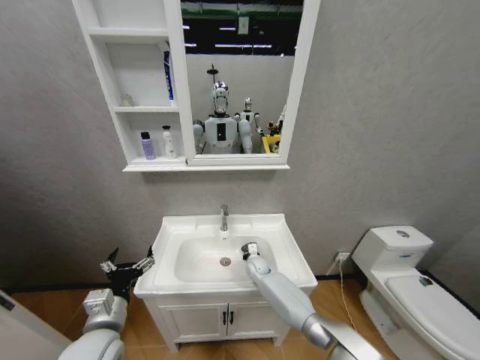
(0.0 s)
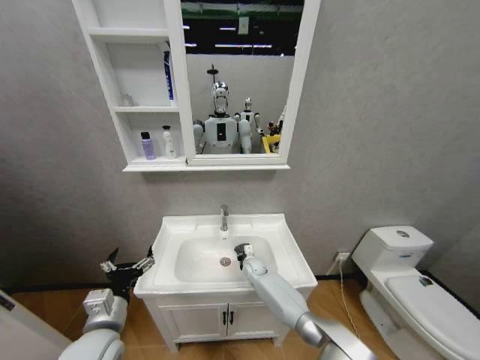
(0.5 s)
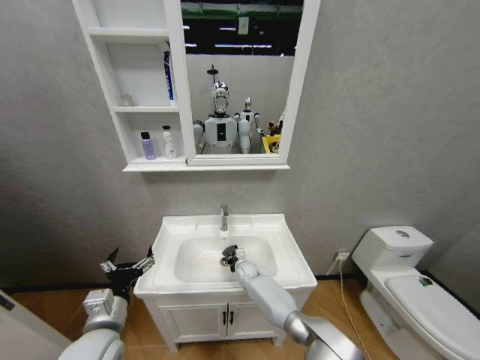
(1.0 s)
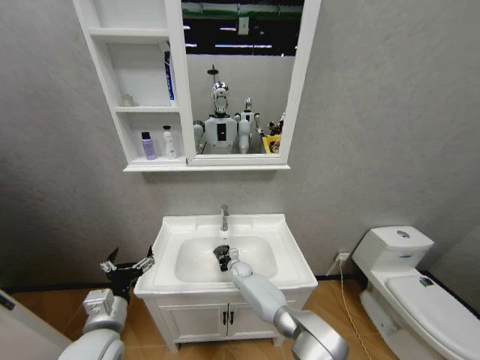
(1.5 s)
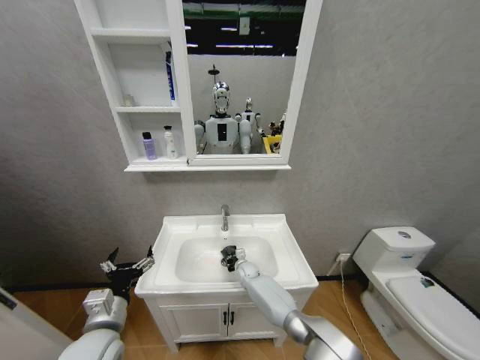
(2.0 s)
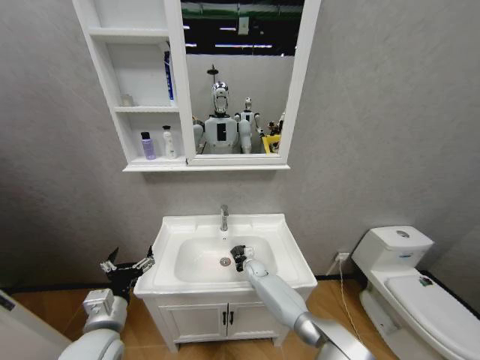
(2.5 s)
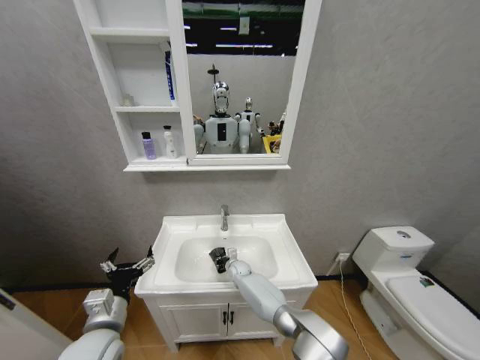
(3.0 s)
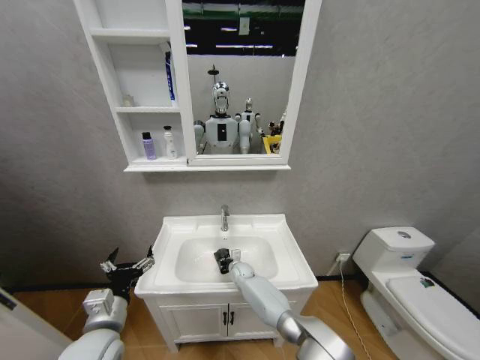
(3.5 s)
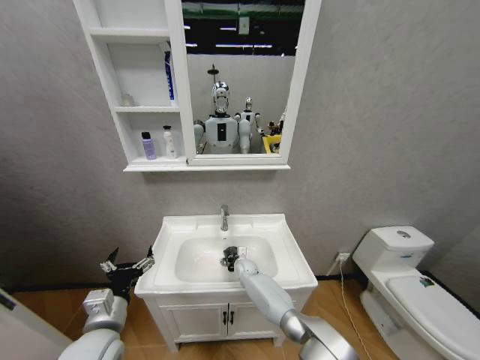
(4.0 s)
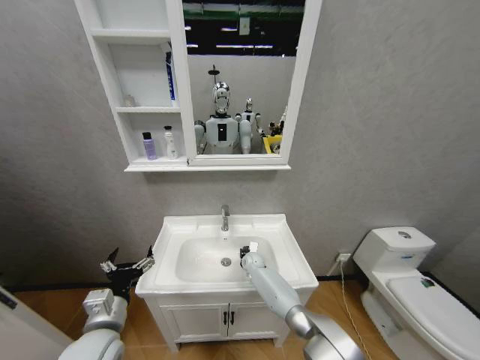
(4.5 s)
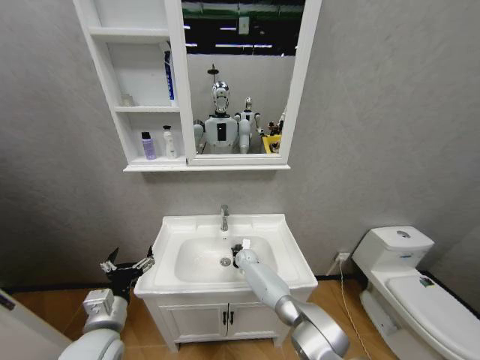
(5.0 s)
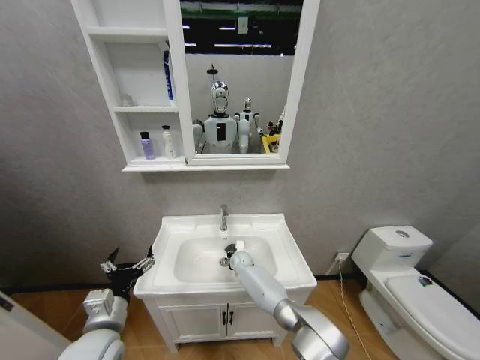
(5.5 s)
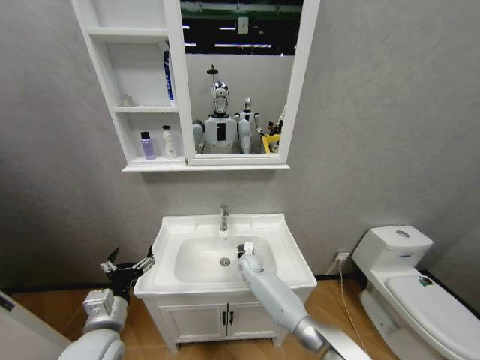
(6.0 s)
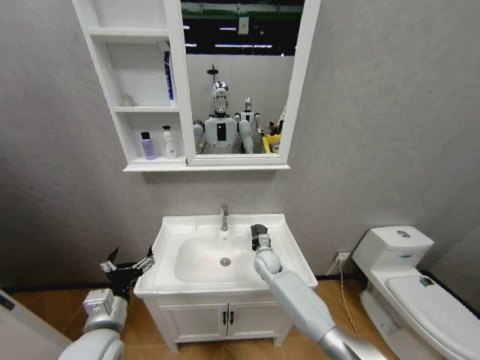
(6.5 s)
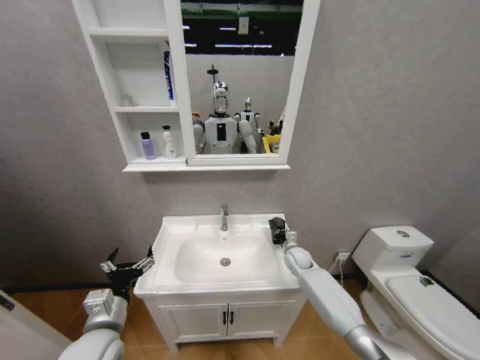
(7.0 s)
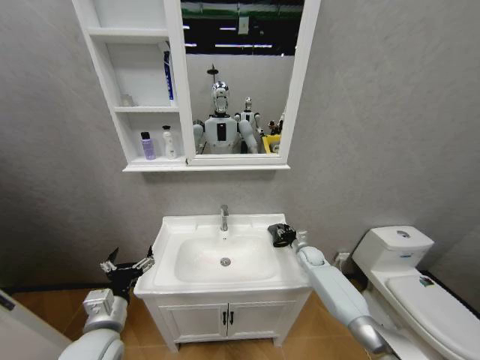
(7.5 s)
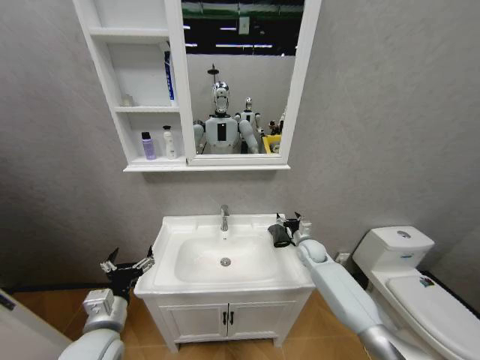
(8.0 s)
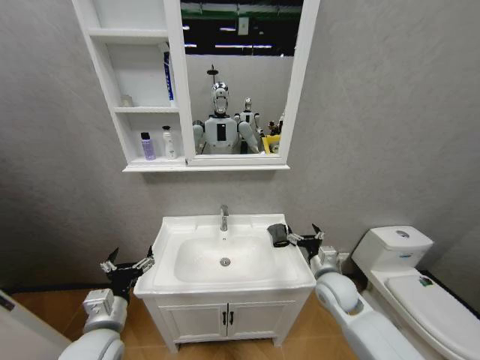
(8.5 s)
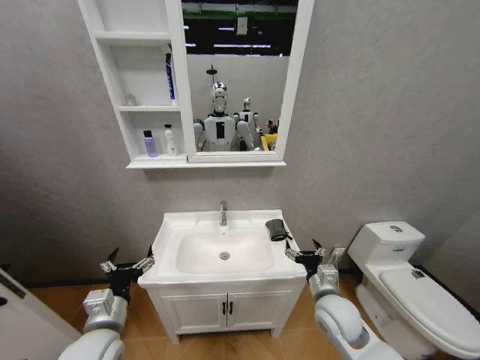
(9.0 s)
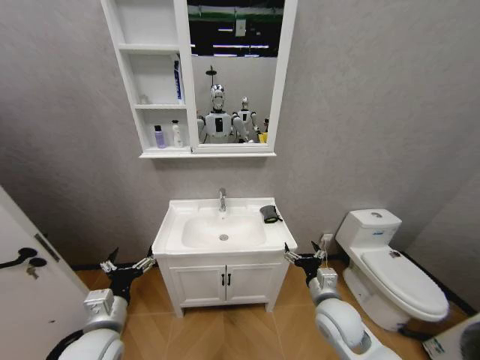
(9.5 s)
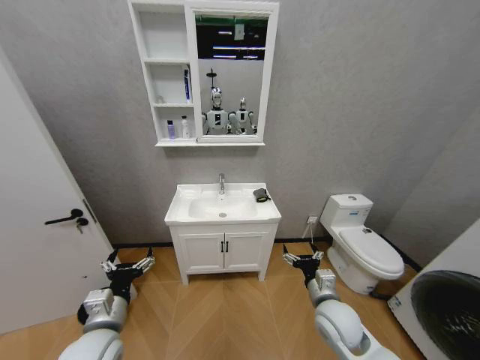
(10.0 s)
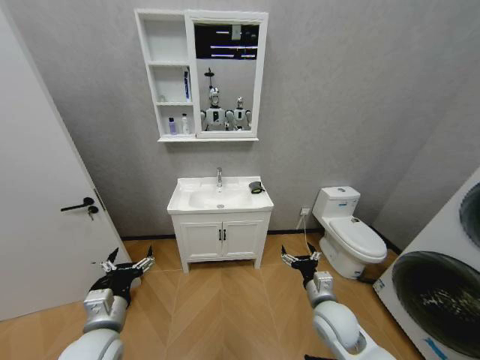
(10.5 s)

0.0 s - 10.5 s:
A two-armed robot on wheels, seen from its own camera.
Task of the whole recording: Move facial cleanser and shampoo from washbasin to cabinet, then wipe washbasin with towel.
0.0 s - 2.0 s: The right gripper ends up some 5 cm from where it was.
2.0 s - 4.0 s: The grippers make only small movements.
4.0 s - 6.5 s: The right gripper goes about 10 cm upward and to the right.
6.5 s - 8.5 s: The right gripper is displaced to the right, backward and upward by about 25 cm, and opens up.
8.5 s - 10.5 s: The right gripper travels backward by roughly 5 cm.

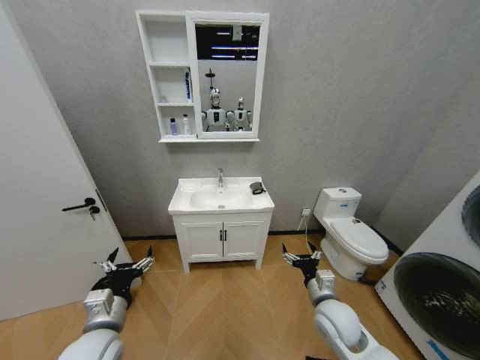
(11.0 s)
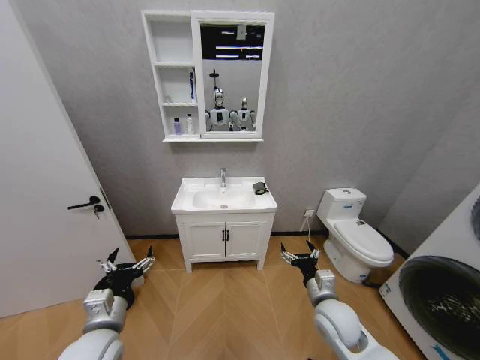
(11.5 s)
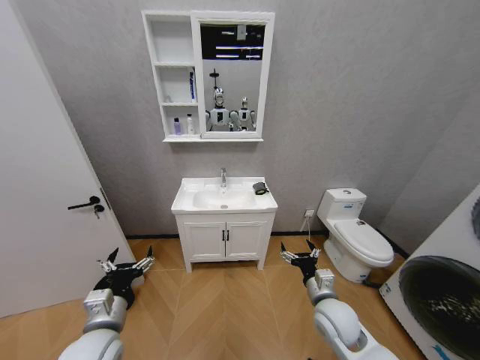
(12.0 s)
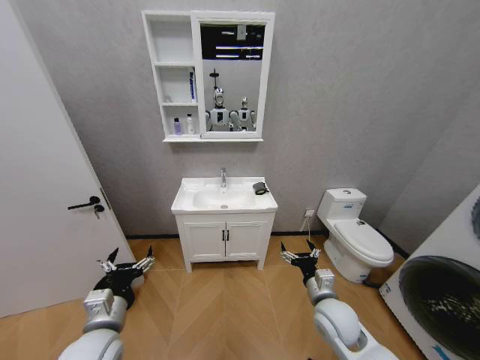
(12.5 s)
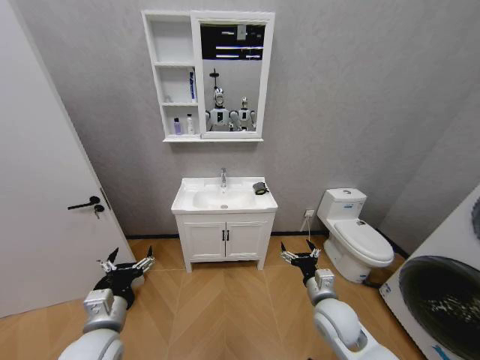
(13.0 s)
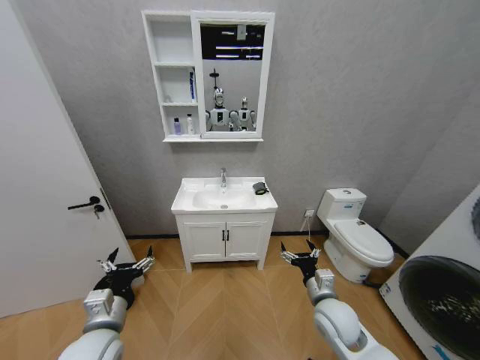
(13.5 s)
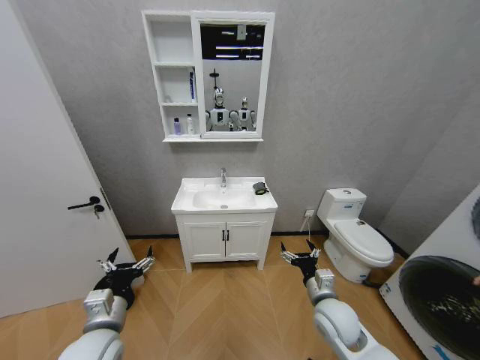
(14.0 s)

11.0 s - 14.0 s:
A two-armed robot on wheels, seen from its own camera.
Task of the whole recording: Move facial cleanser and shampoo from washbasin to cabinet, then wipe washbasin with towel.
11.0 s - 14.0 s: The two grippers keep their place.

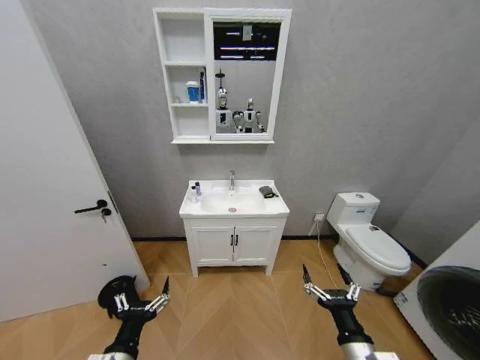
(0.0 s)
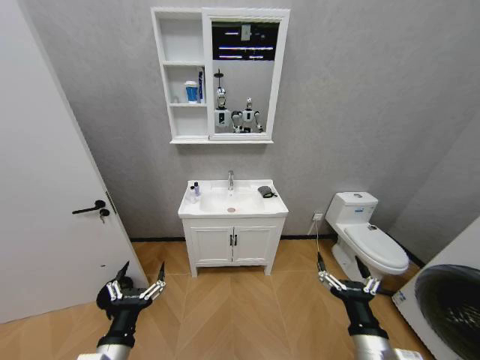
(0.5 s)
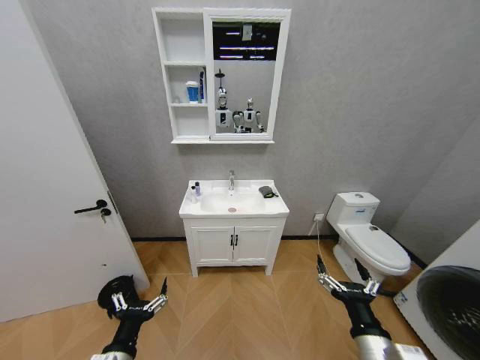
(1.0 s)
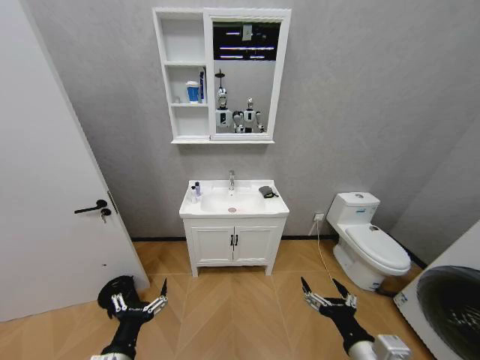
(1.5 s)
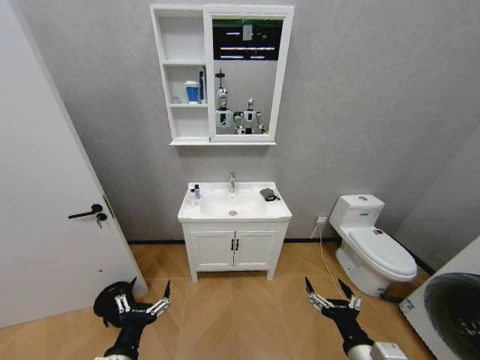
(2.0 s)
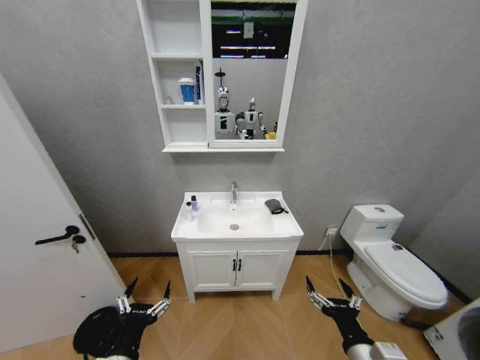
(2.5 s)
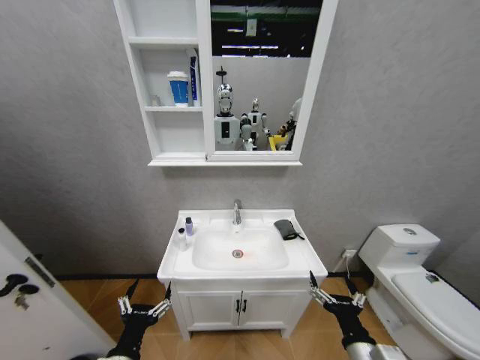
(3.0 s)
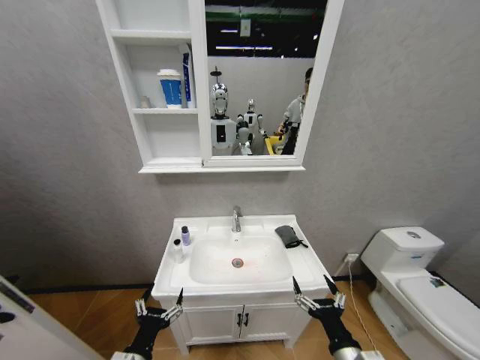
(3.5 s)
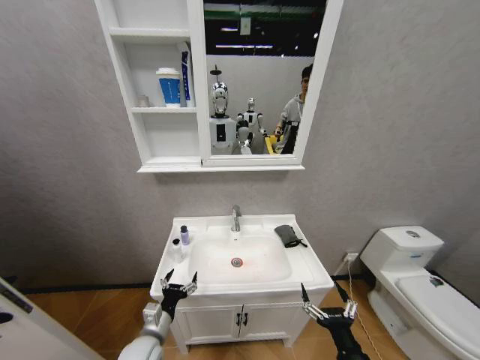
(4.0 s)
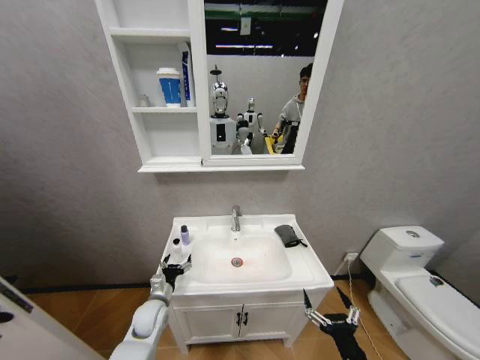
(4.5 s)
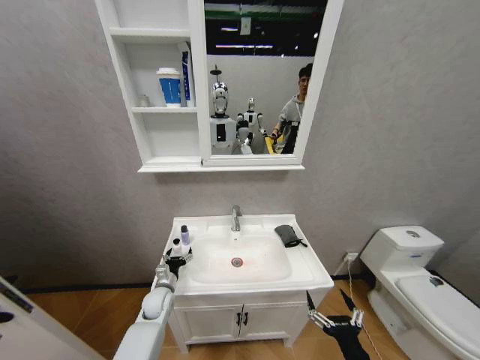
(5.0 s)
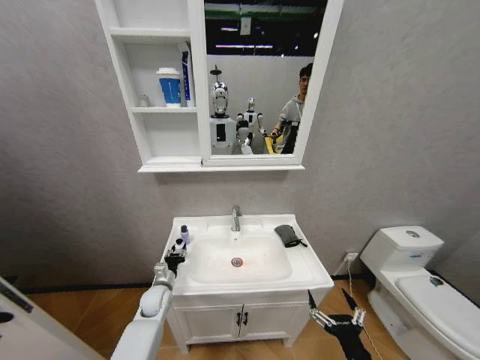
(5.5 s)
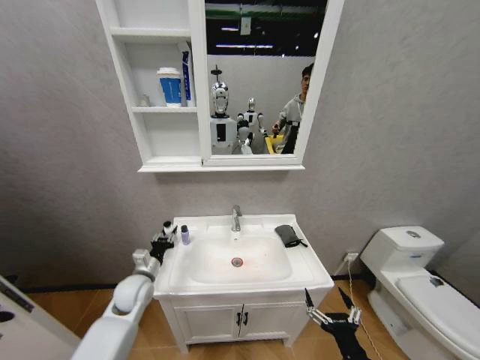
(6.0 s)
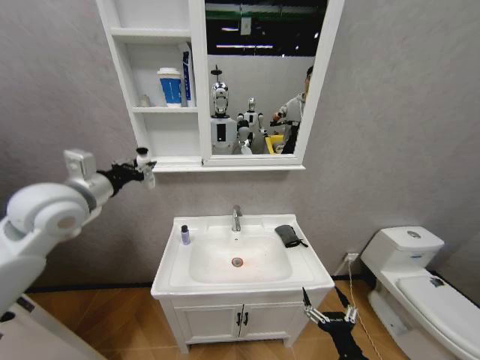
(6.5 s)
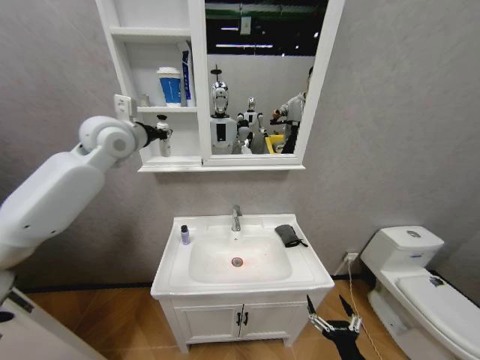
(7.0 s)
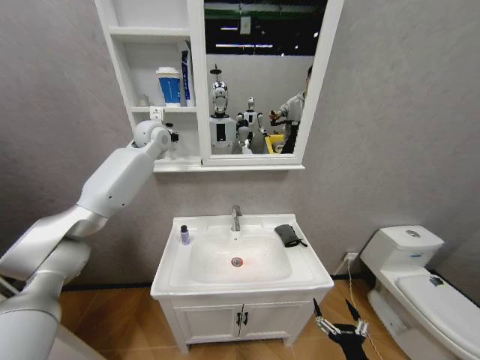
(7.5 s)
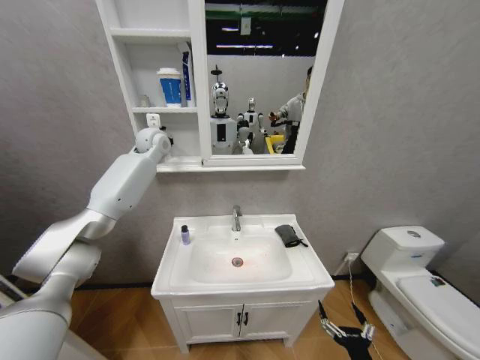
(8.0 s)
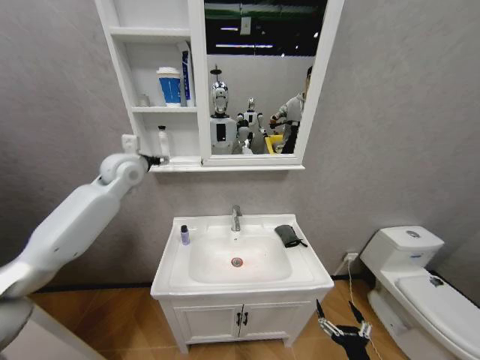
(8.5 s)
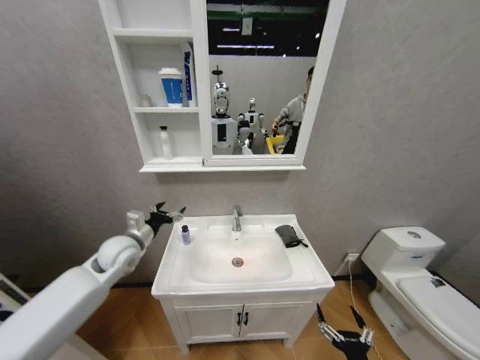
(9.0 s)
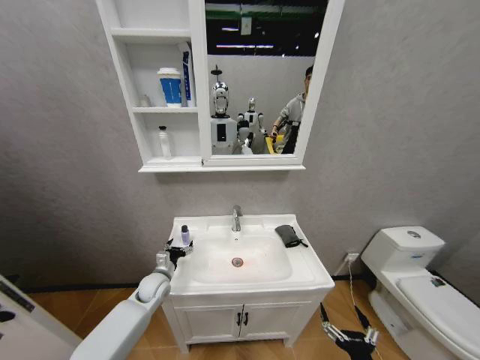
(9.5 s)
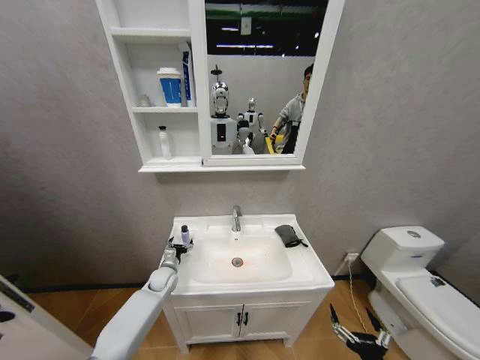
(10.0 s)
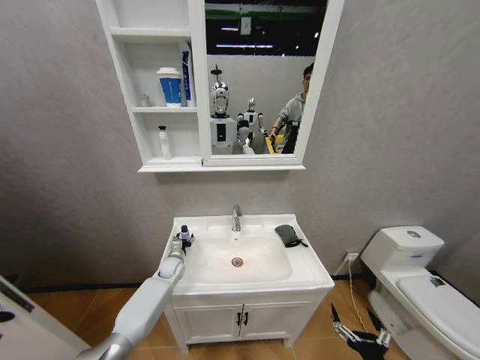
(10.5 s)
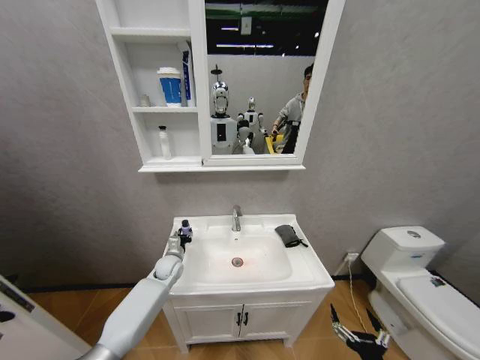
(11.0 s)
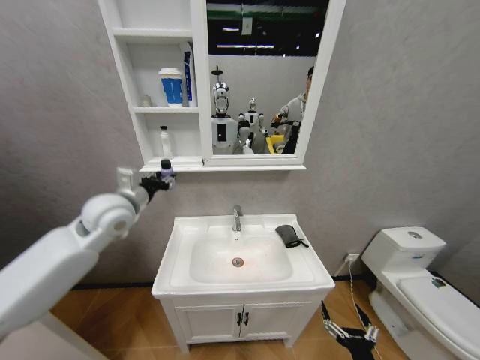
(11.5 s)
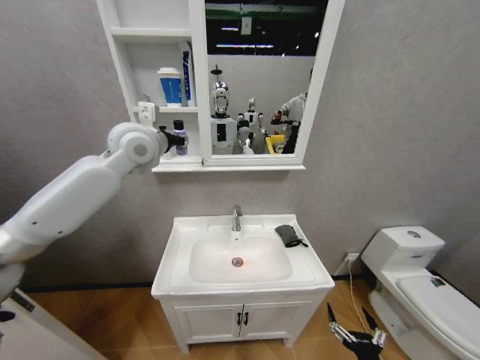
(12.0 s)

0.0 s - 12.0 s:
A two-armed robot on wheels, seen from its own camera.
Task of the whole recording: Move facial cleanser and shampoo from washbasin to cabinet, then wipe washbasin with towel.
2.0 s - 4.0 s: The left gripper heads forward and downward, covering approximately 15 cm; the right gripper travels downward by some 5 cm.
4.0 s - 6.0 s: The left gripper is displaced forward, upward and to the left by some 15 cm, and closes.
6.0 s - 8.0 s: The left gripper travels upward and forward by roughly 40 cm; the right gripper heads downward, covering about 5 cm.
8.0 s - 10.0 s: The left gripper heads downward, covering approximately 50 cm, and opens its fingers.
10.0 s - 12.0 s: The left gripper goes about 50 cm upward, and closes up.
